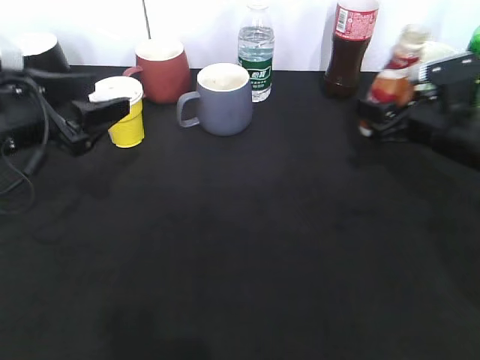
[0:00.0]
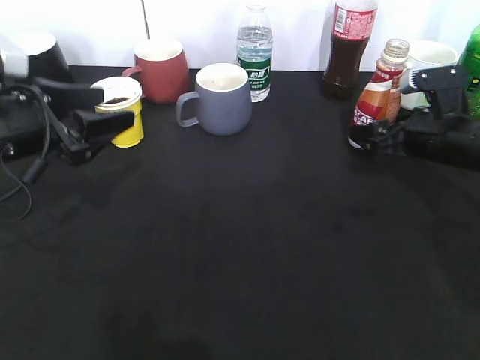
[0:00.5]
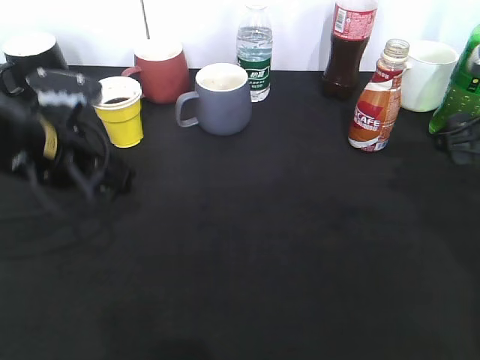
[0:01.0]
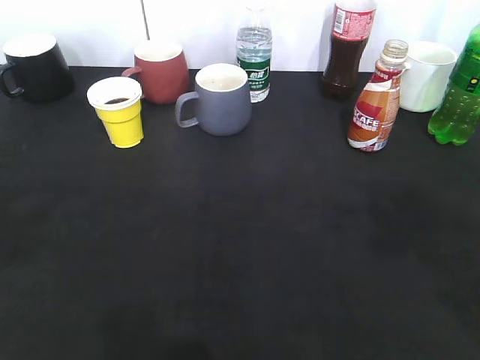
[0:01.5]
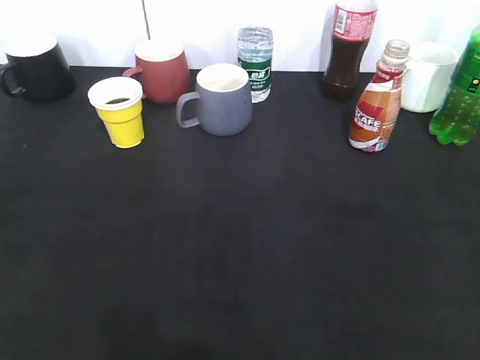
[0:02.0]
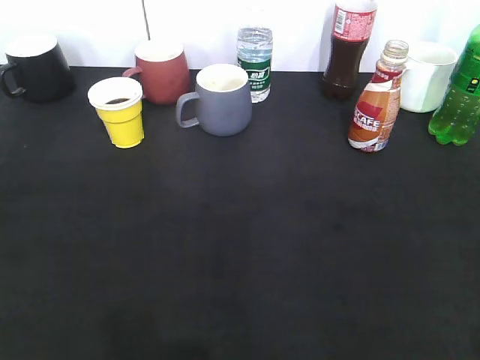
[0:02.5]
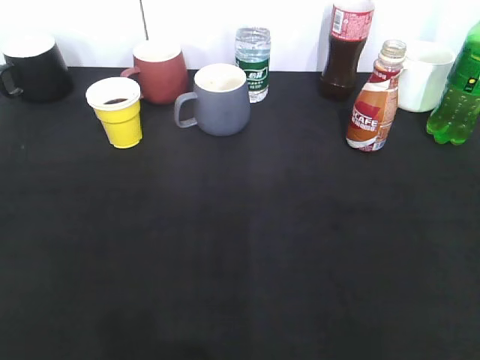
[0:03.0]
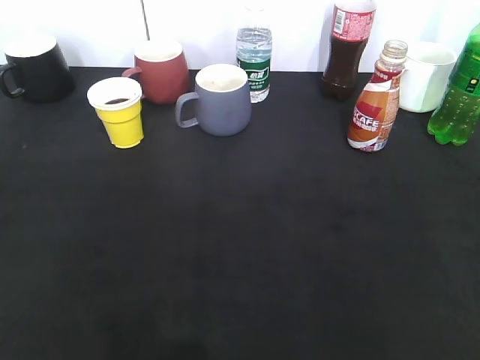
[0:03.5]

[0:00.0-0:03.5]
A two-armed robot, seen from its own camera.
0:00.0 to 0:02.0: The right gripper travels backward and upward by approximately 40 cm, and opens and closes again. Meanwhile the left gripper travels backward by approximately 30 cm.
